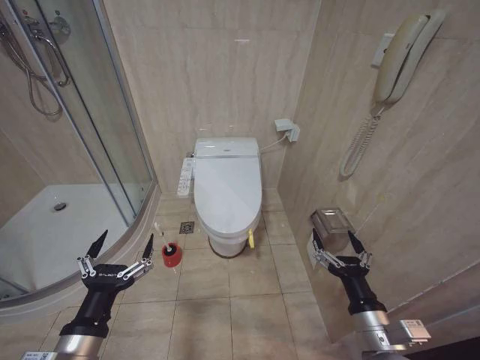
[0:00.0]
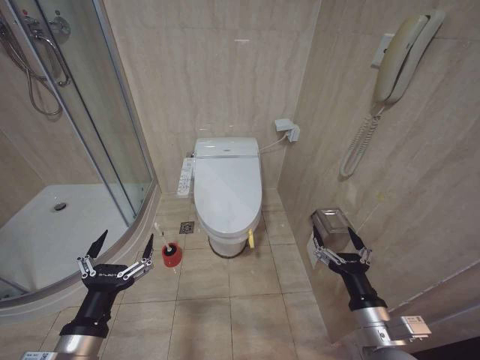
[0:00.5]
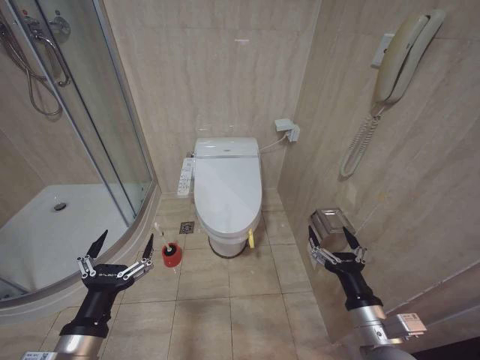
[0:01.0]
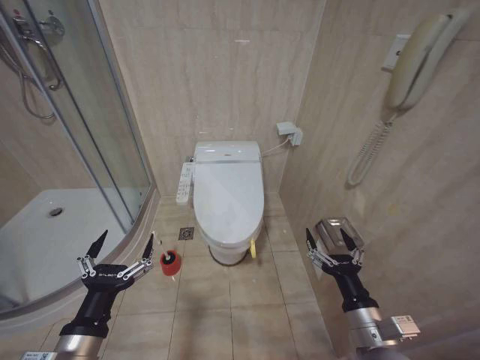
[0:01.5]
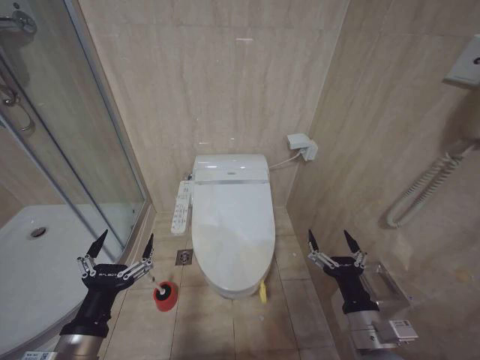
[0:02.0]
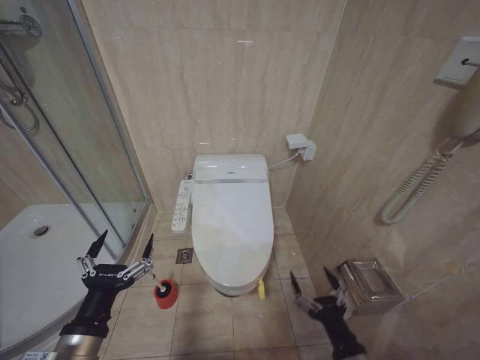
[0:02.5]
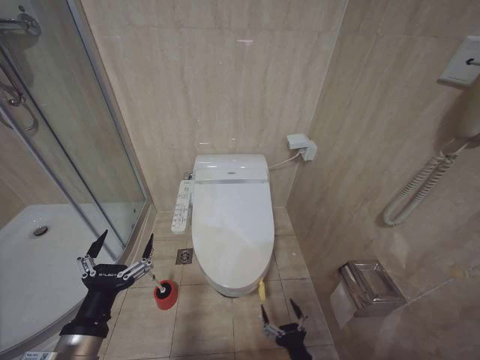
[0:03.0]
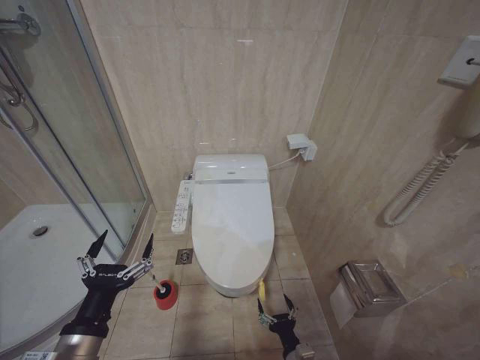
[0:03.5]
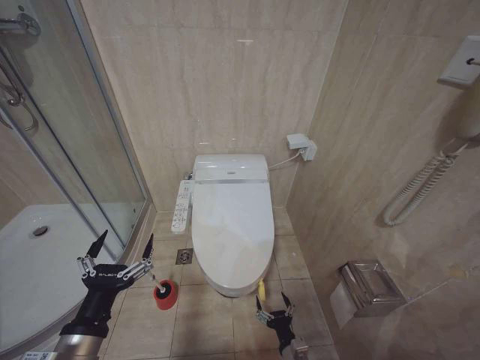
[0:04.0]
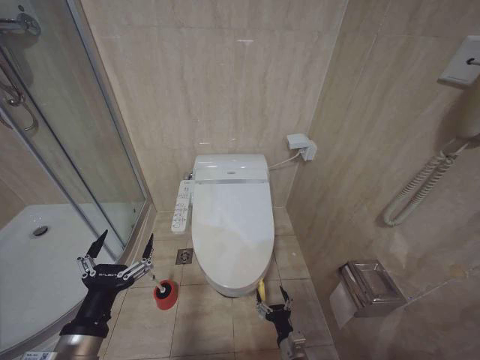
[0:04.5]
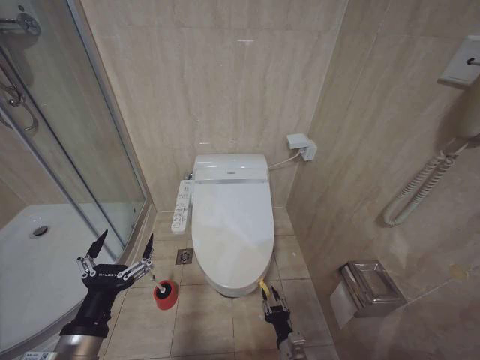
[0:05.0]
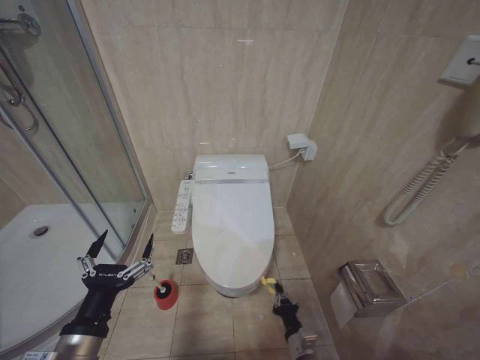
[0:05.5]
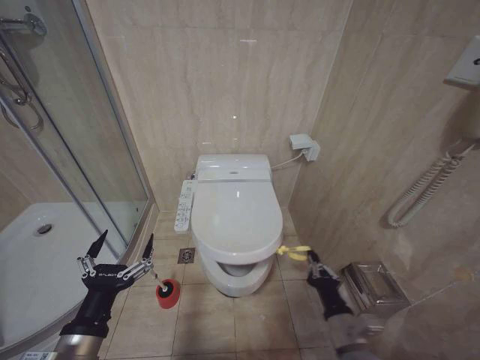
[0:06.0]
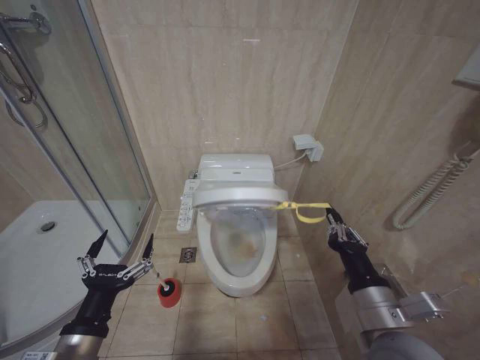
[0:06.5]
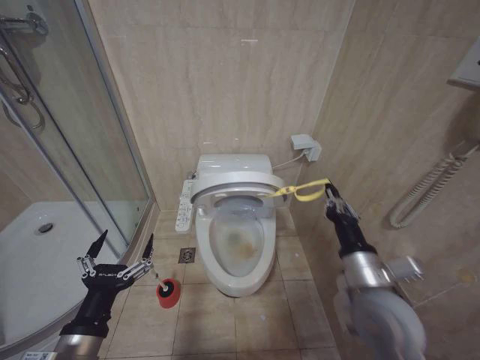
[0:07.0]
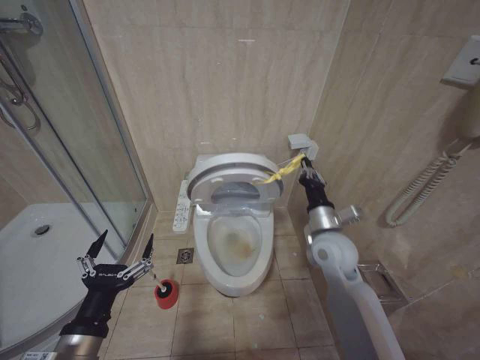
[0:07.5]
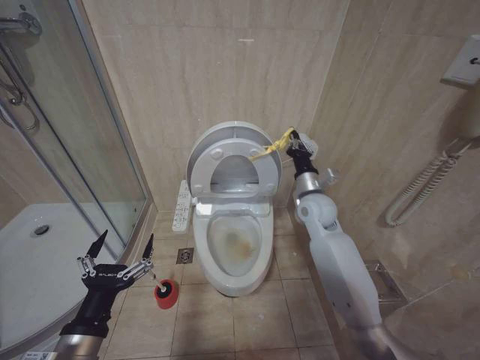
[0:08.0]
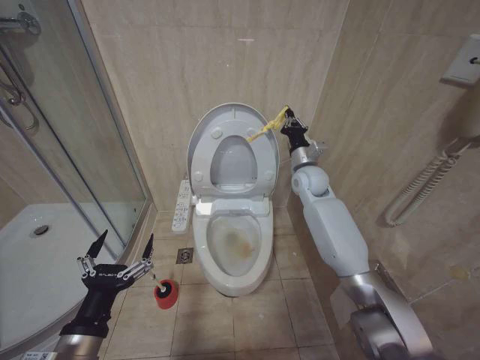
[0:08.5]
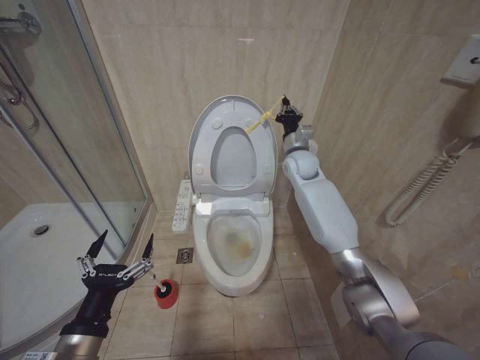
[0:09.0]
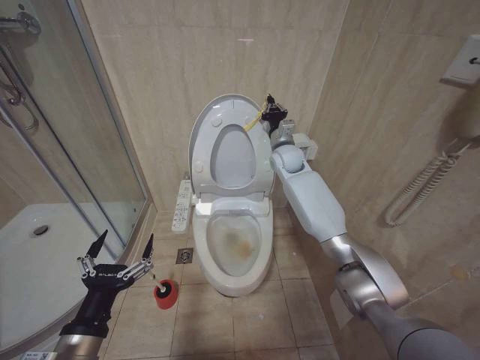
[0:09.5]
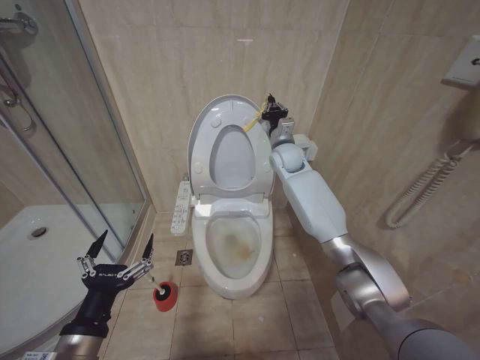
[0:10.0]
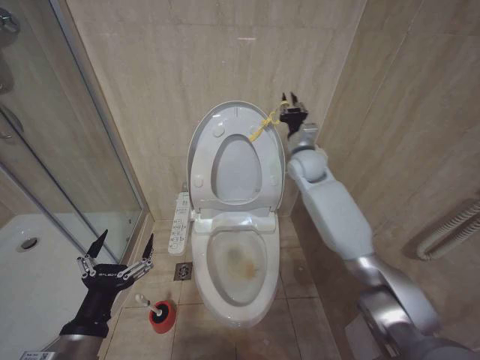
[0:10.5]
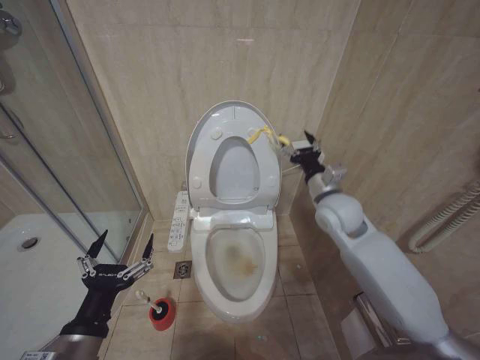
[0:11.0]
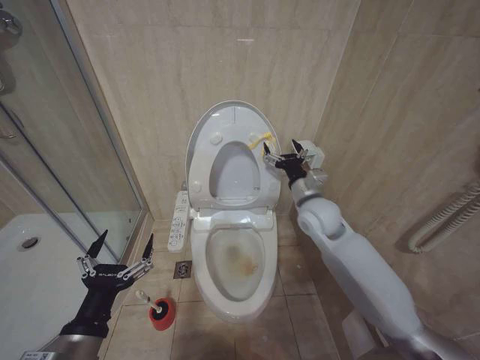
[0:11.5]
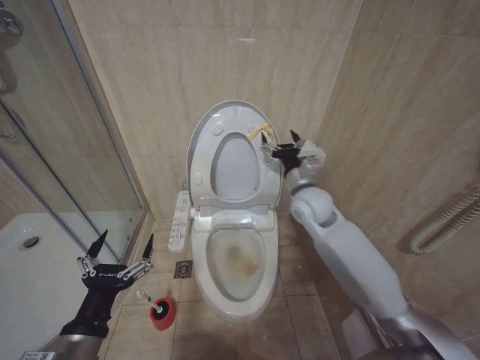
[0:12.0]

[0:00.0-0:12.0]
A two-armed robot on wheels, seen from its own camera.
Task of the whole recording: Open the toilet lid, clean the toilet bowl with a toilet brush, close the toilet lid, and flush.
2.0 to 4.0 s: The right gripper moves downward, roughly 25 cm.
4.0 to 6.0 s: The right gripper travels upward by approximately 15 cm, and closes.
6.0 to 8.0 s: The right gripper is displaced forward and upward by about 35 cm.
8.0 to 10.0 s: The right gripper travels forward, upward and to the left by about 20 cm.
10.0 to 12.0 s: The right gripper goes some 15 cm backward, and opens its fingers.

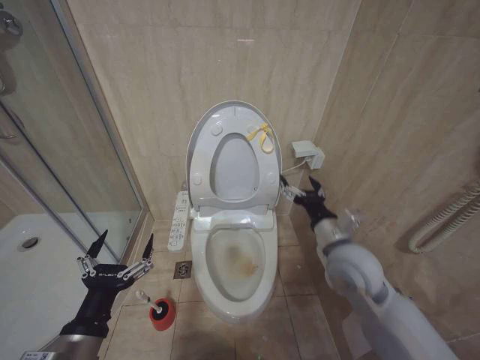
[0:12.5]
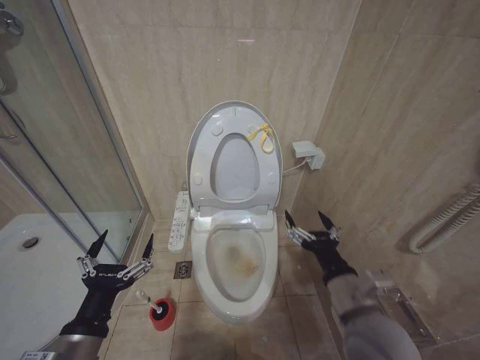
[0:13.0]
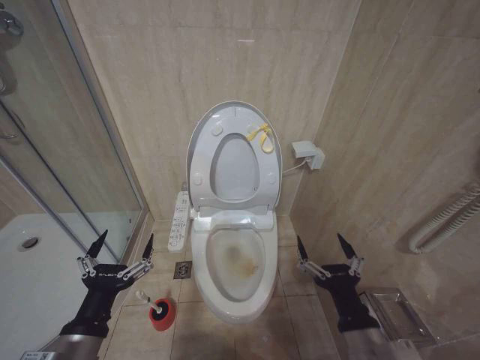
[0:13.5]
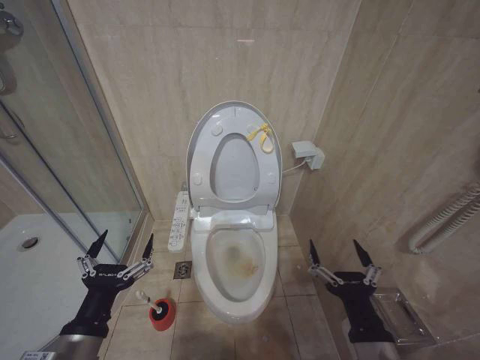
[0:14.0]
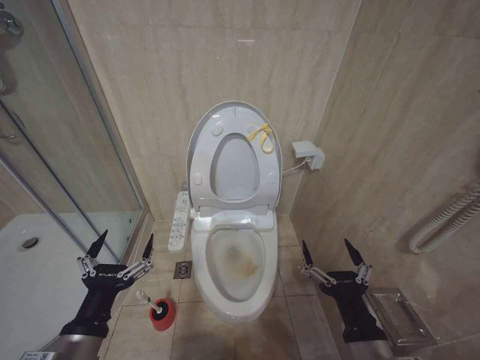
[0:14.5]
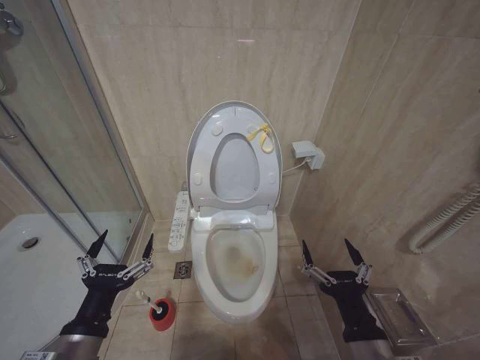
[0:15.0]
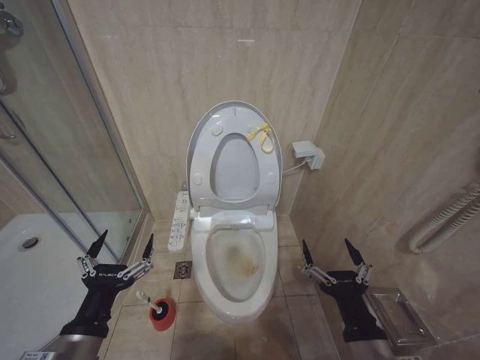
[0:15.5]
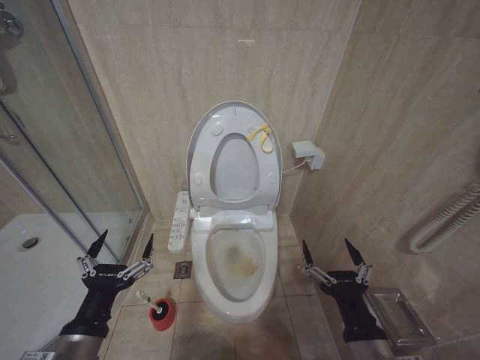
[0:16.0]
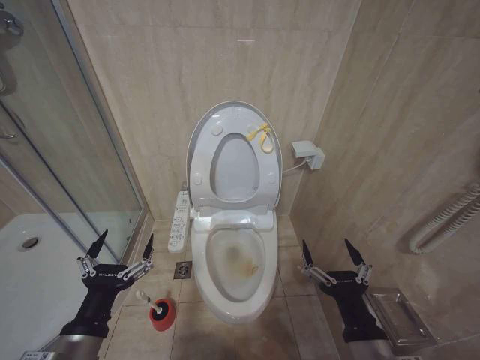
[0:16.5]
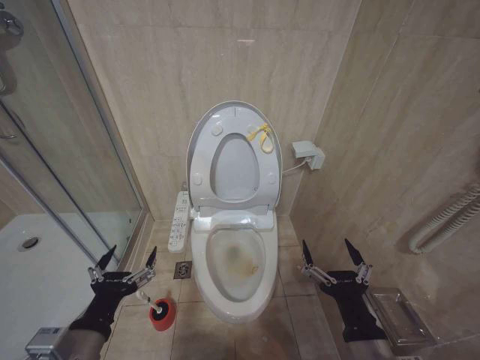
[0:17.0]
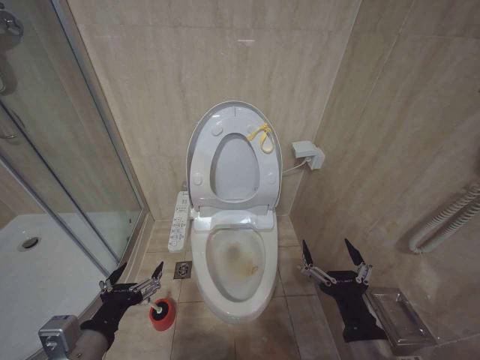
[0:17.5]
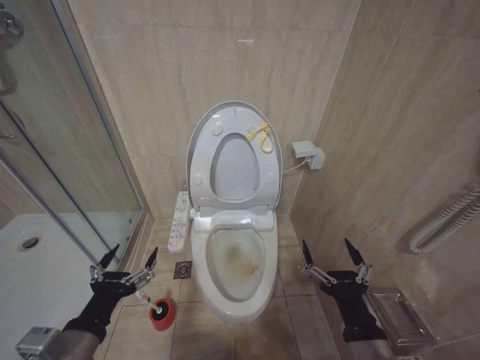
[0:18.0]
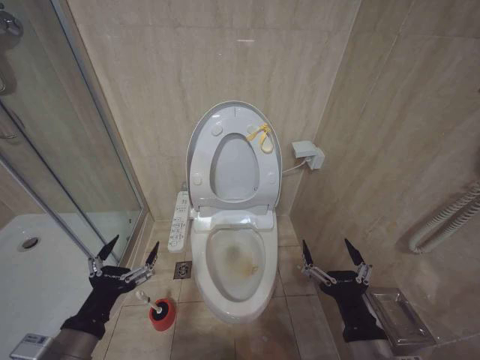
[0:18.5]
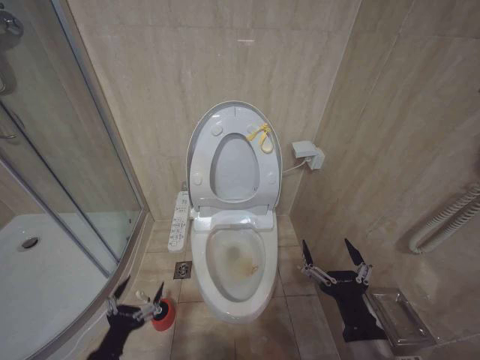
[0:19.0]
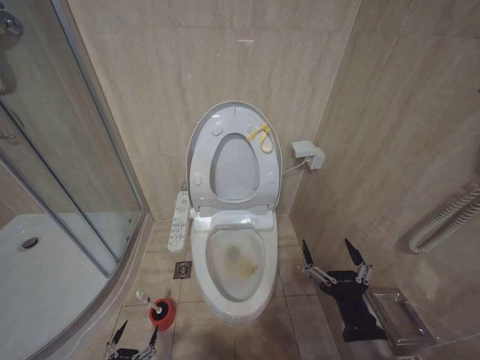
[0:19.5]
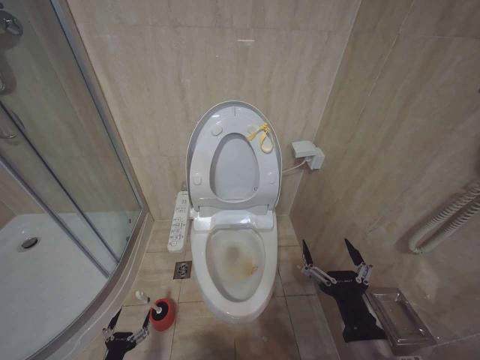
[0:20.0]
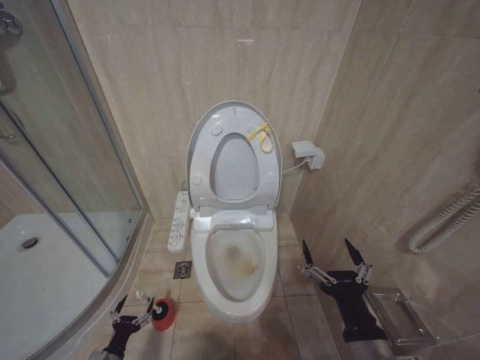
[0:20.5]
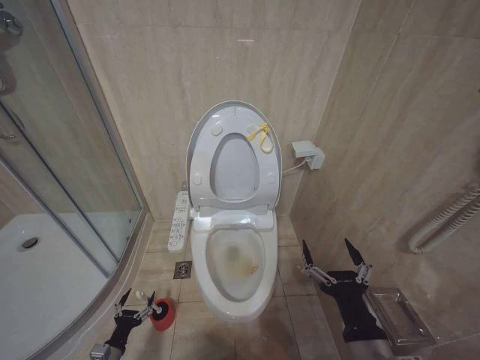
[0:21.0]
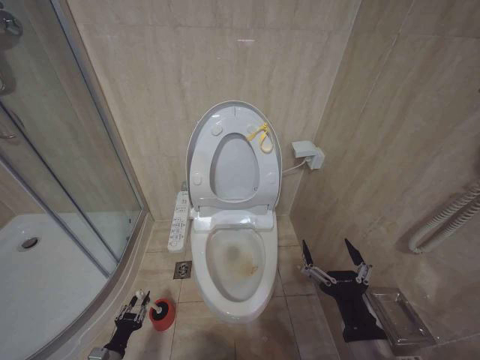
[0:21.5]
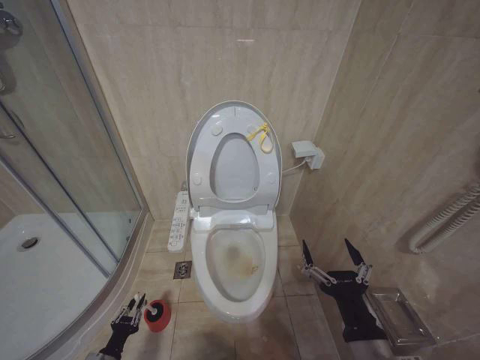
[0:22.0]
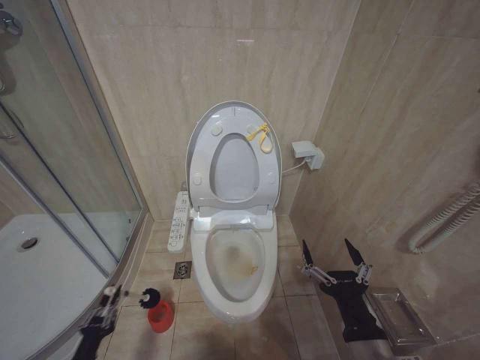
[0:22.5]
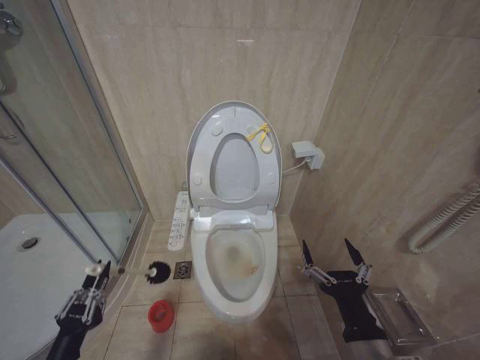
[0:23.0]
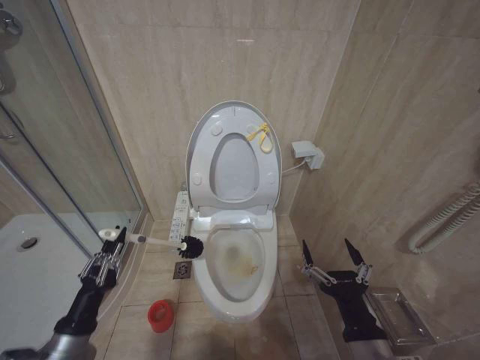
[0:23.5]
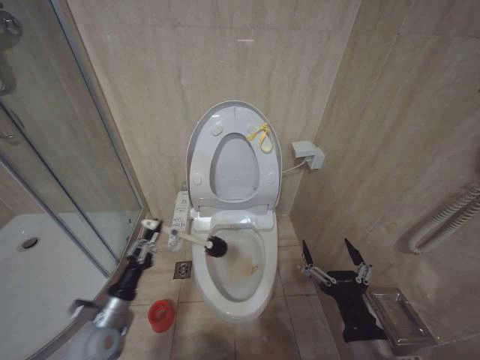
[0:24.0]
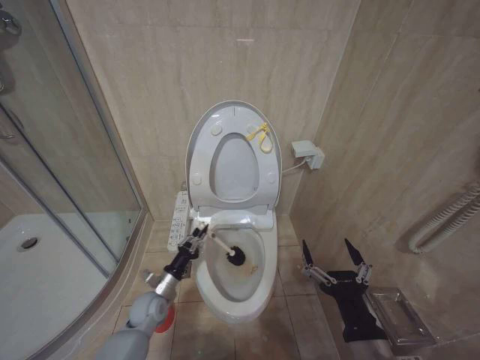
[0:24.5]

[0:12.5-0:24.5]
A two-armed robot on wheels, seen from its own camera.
Task of the whole recording: Open the toilet lid, clean the toilet bowl with a toilet brush, close the toilet lid, and flush.
12.5 to 14.5 s: The right gripper travels backward by about 20 cm.
14.5 to 16.5 s: Both grippers stay about where they are.
18.5 to 20.5 s: The left gripper shifts about 35 cm downward.
20.5 to 22.5 s: The left gripper goes about 5 cm upward, and closes its fingers.
22.5 to 24.5 s: The left gripper heads forward, to the right and upward, covering about 25 cm.

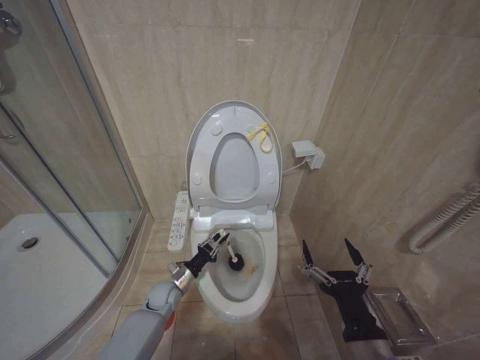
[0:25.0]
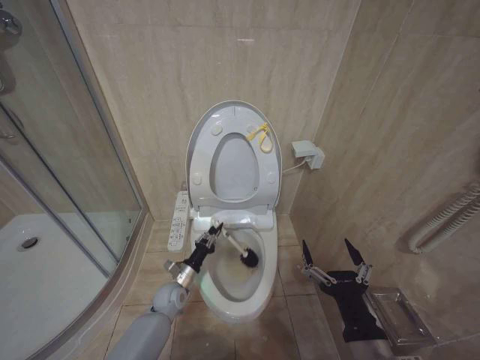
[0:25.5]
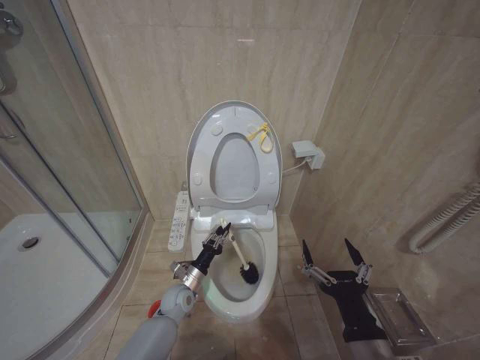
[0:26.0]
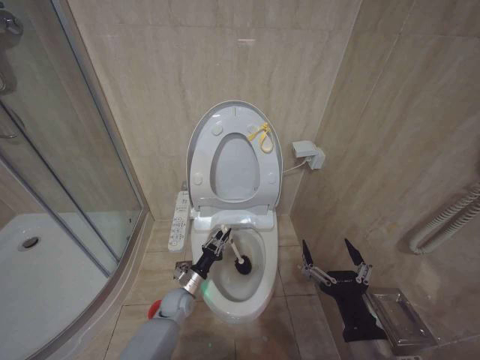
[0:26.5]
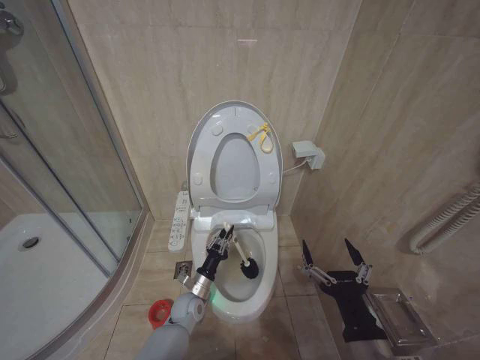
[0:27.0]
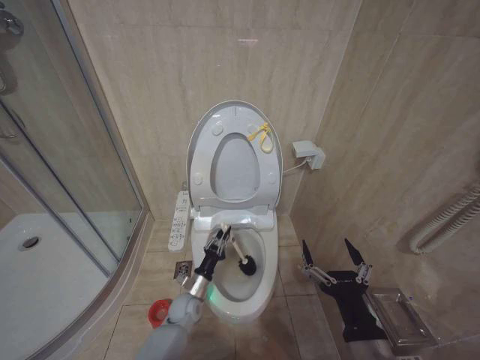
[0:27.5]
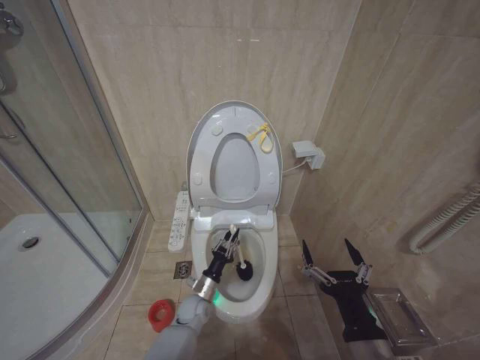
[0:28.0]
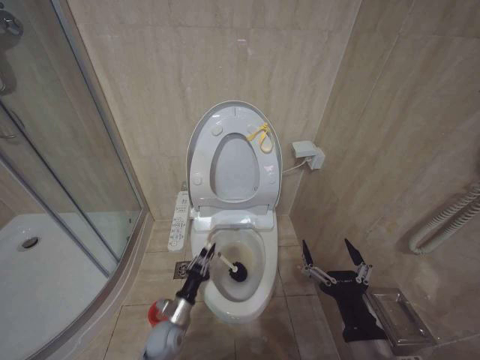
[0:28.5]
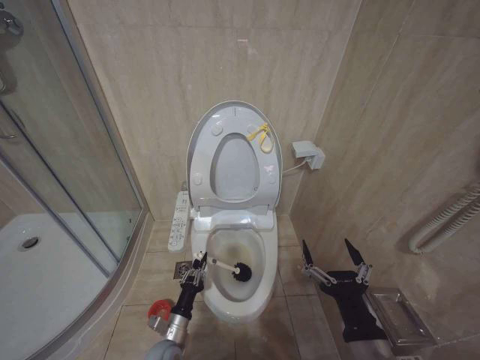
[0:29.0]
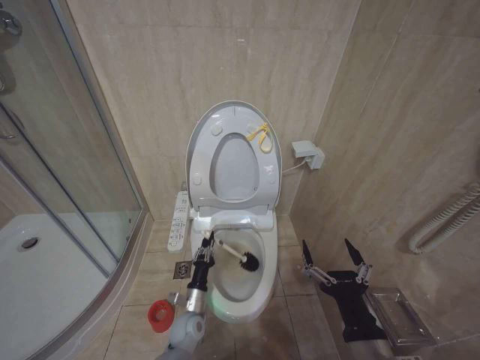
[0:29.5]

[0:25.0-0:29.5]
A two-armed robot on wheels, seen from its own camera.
Task of the whole recording: Open the toilet lid, clean the toilet bowl with a toilet brush, close the toilet lid, and flush.
25.0 to 27.0 s: The left gripper is displaced to the right by approximately 10 cm.
27.0 to 29.5 s: The left gripper travels backward by approximately 5 cm.
